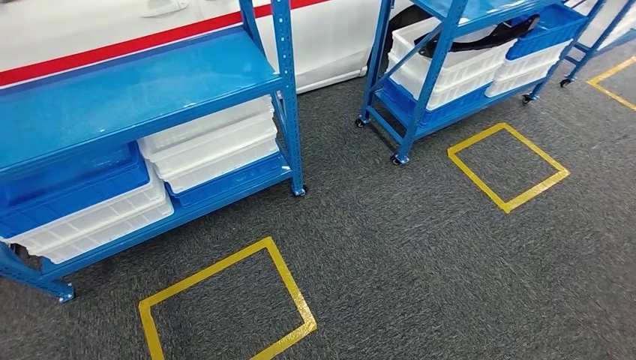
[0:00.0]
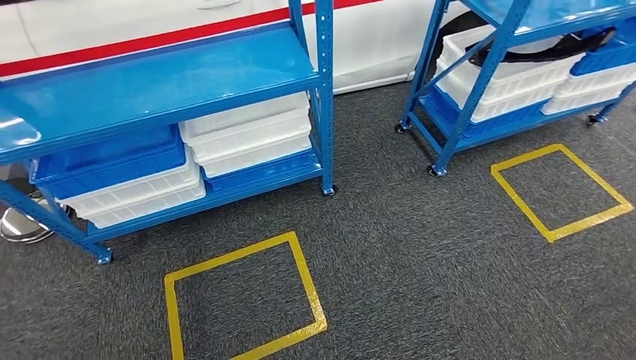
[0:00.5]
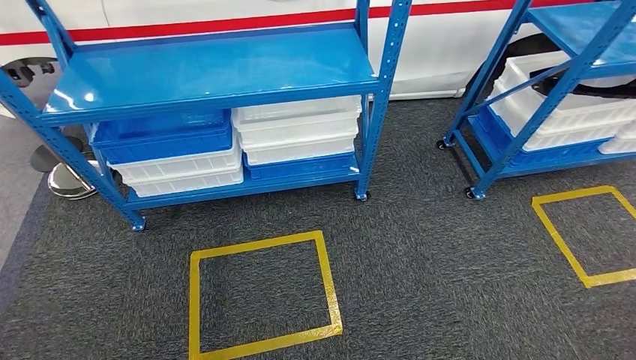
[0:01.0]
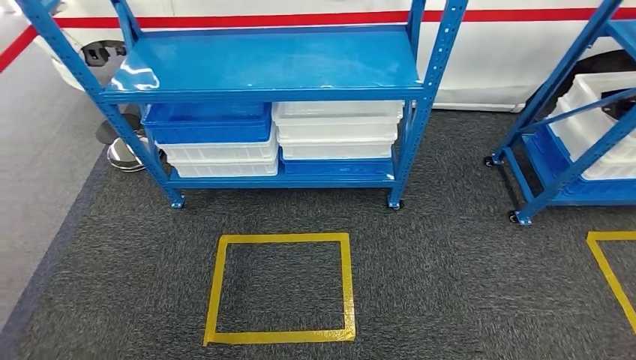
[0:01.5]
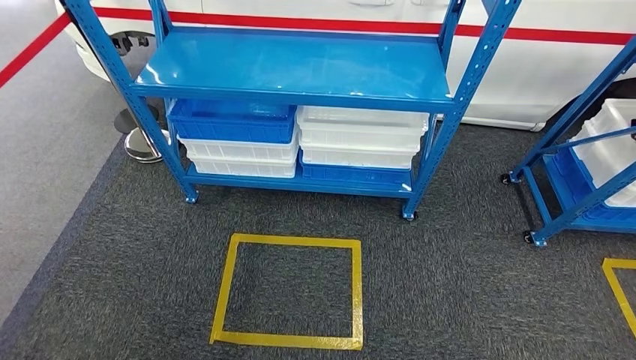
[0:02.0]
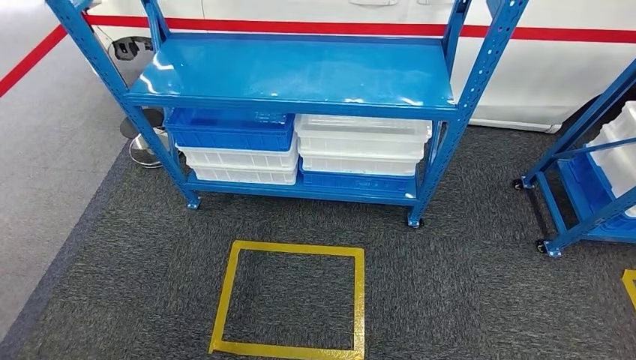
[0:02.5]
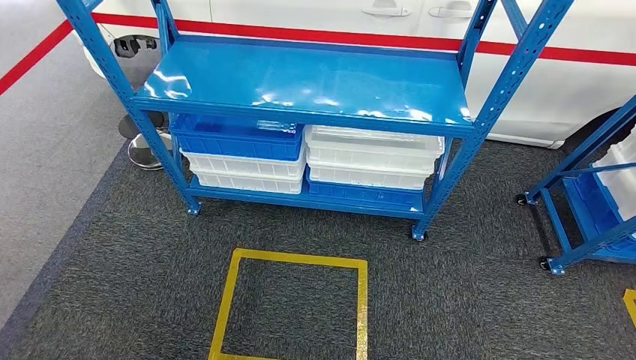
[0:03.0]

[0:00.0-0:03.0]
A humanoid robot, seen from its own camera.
Step, 0:00.0 to 0:03.0: Move to the initial position of the shelf.
